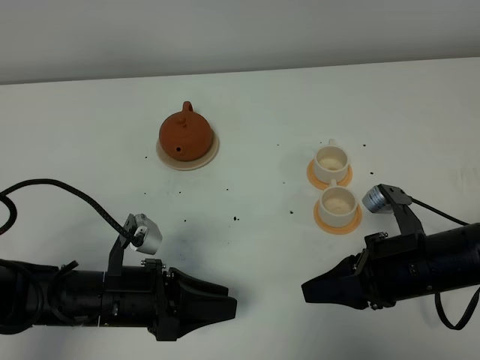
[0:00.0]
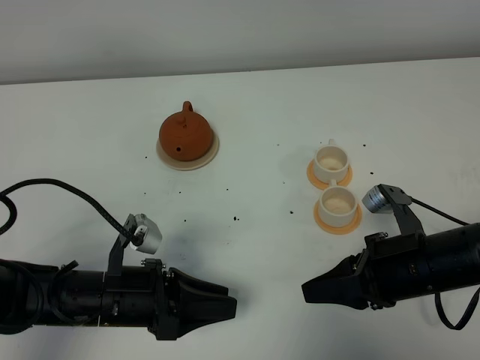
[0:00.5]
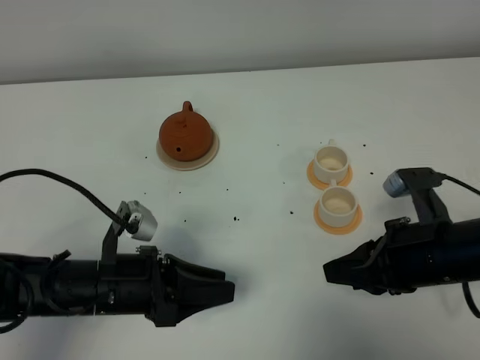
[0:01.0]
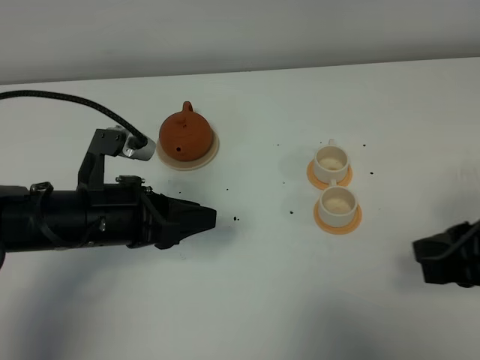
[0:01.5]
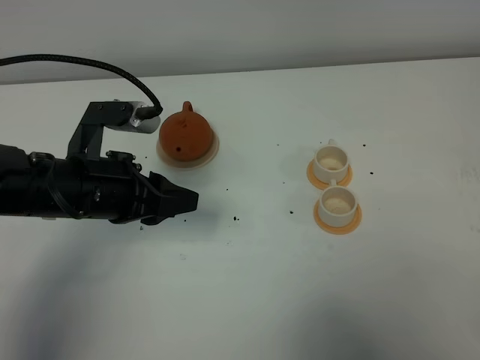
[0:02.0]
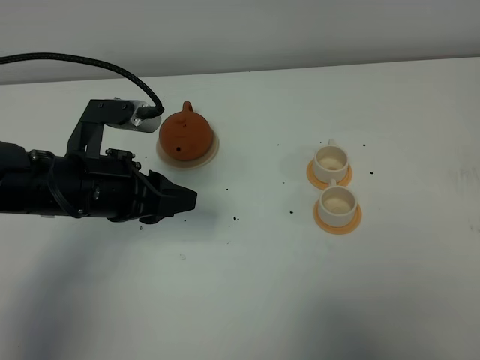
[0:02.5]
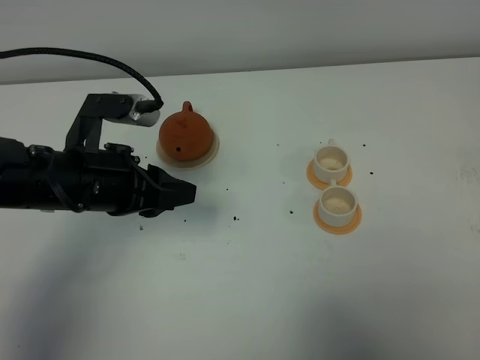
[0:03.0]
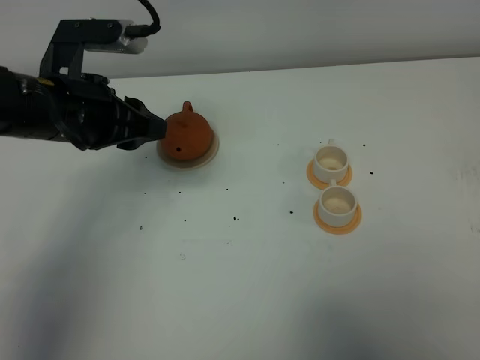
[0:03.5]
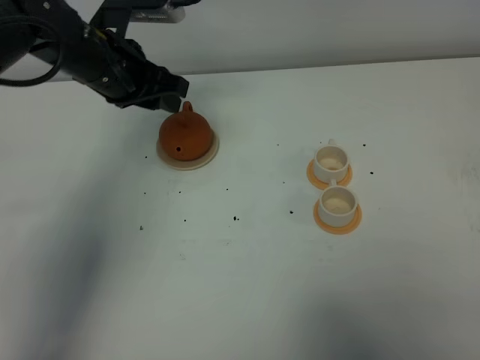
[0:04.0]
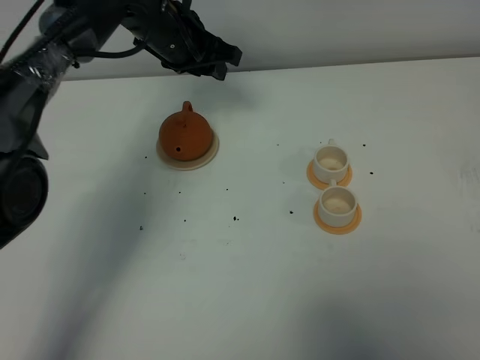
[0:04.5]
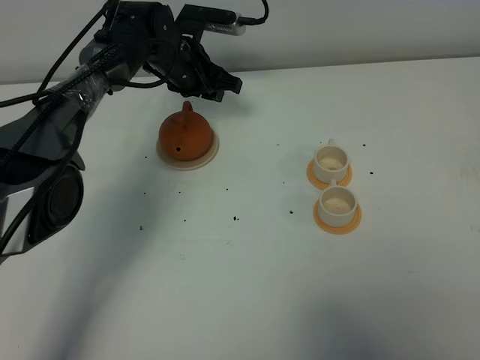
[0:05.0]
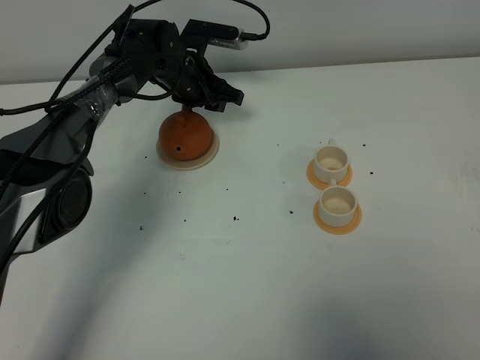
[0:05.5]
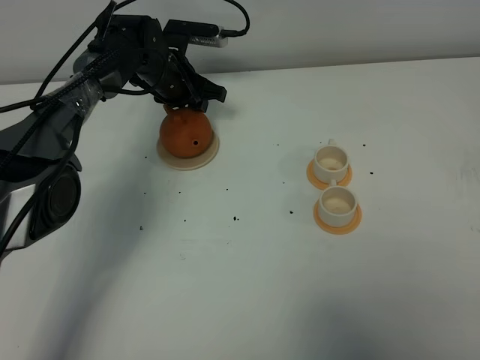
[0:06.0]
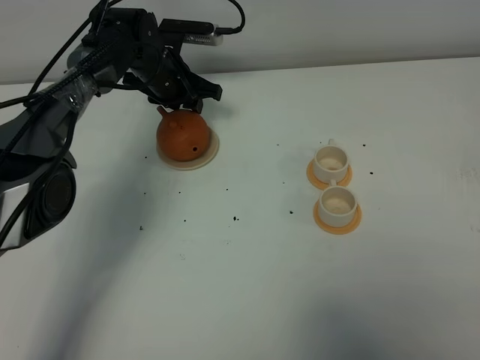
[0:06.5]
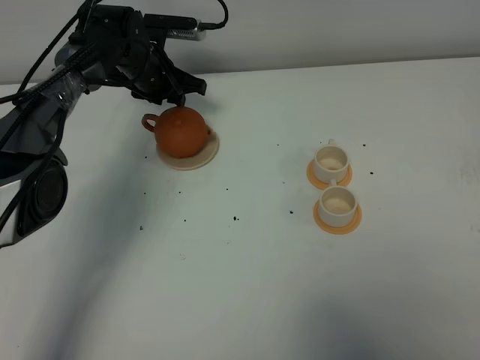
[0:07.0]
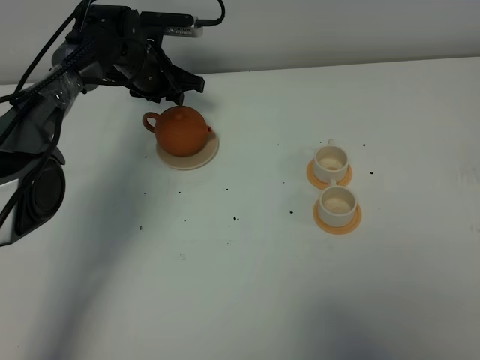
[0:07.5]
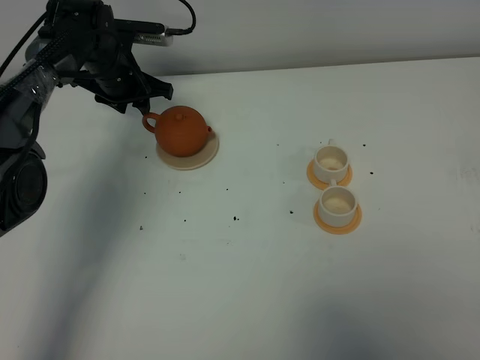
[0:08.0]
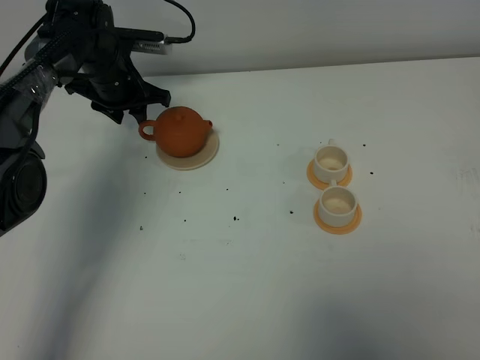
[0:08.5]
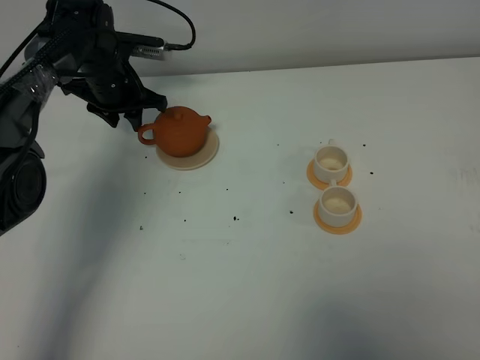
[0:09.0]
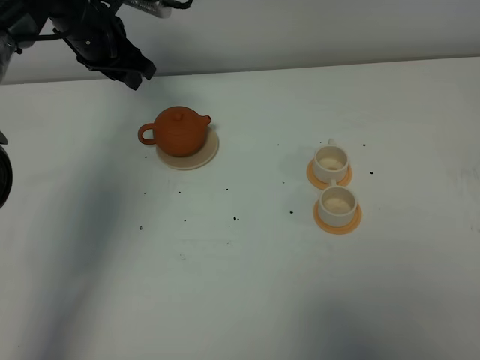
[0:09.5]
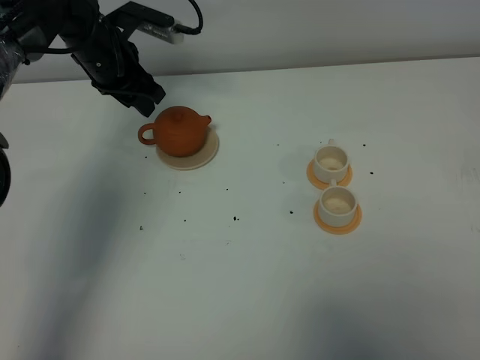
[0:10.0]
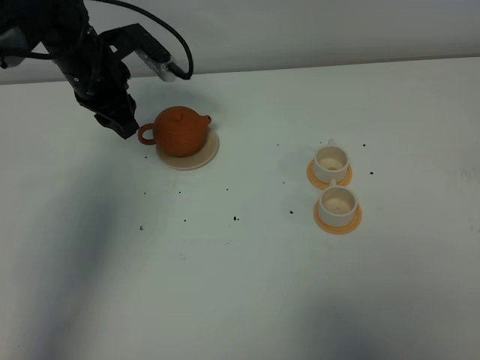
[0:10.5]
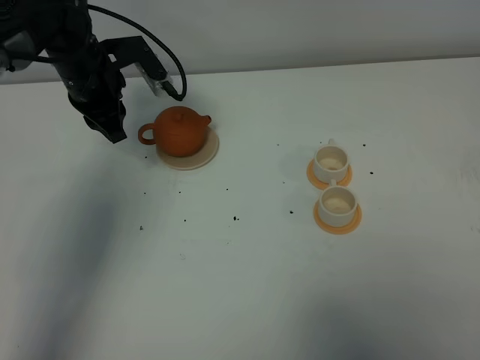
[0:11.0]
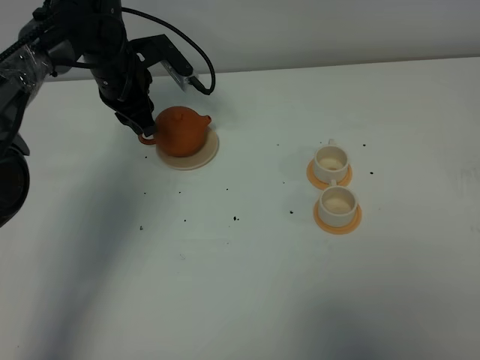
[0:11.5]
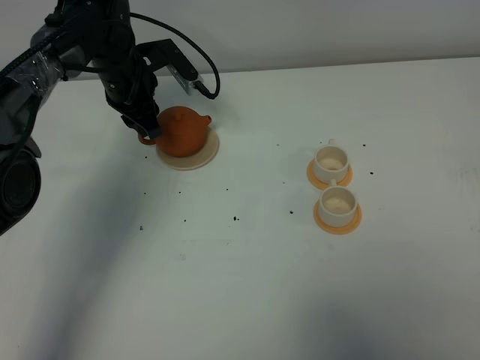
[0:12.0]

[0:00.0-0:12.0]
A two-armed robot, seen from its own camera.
Task of the whole recording: grasp the brown teapot and pour the tea into the two white teacups one by one, put the brown teapot back in its original place.
0.0 to 2.0 s: The right gripper is displaced backward, upward and to the right by some 25 cm; the left gripper is displaced upward and forward by approximately 15 cm.
2.0 to 4.0 s: The left gripper shifts some 15 cm forward. Meanwhile the right gripper moves backward, some 5 cm.
4.0 to 6.0 s: The left gripper is displaced downward and forward by approximately 15 cm.
6.0 to 8.0 s: The left gripper moves to the left, approximately 5 cm.
8.0 to 10.0 s: The left gripper goes roughly 5 cm upward.

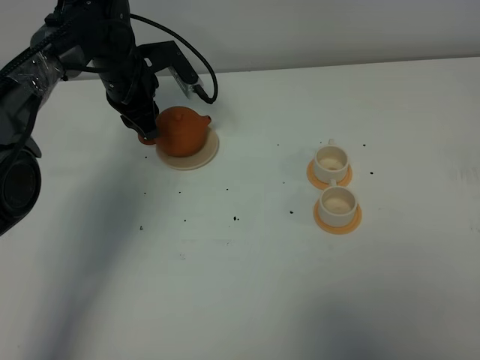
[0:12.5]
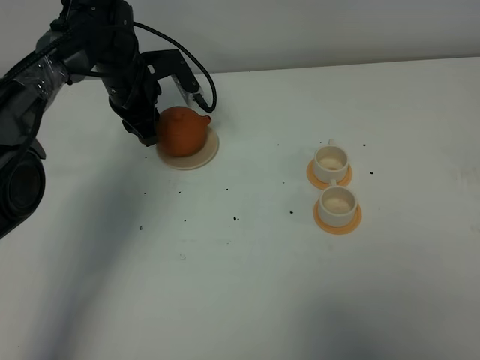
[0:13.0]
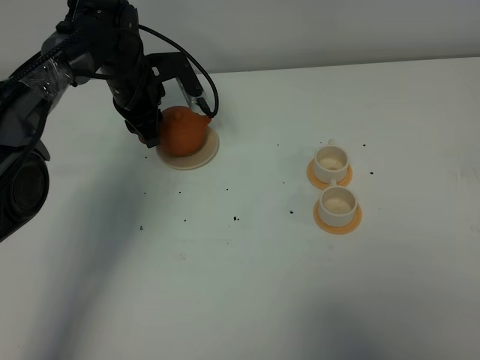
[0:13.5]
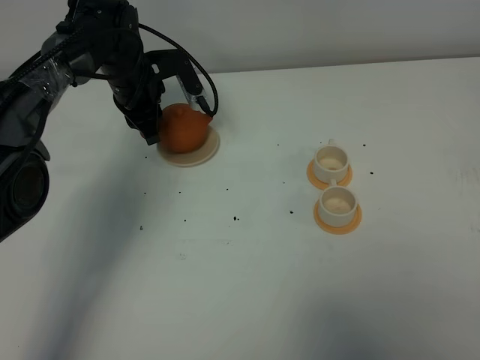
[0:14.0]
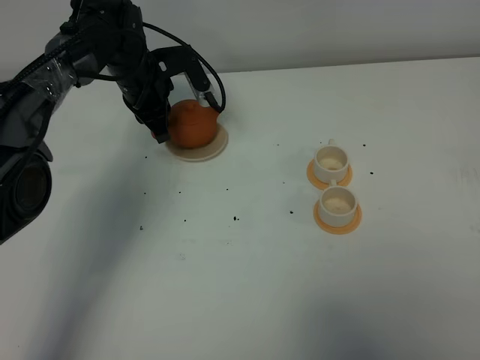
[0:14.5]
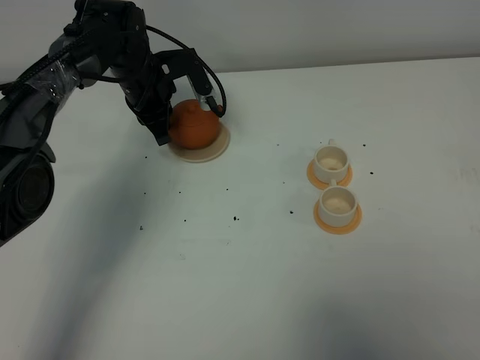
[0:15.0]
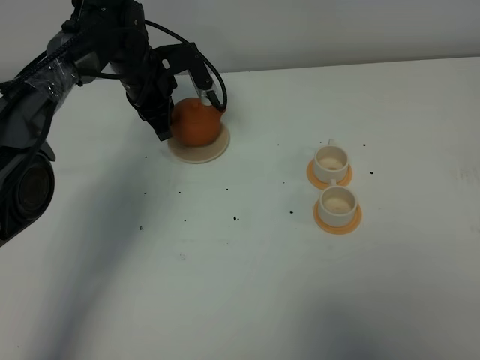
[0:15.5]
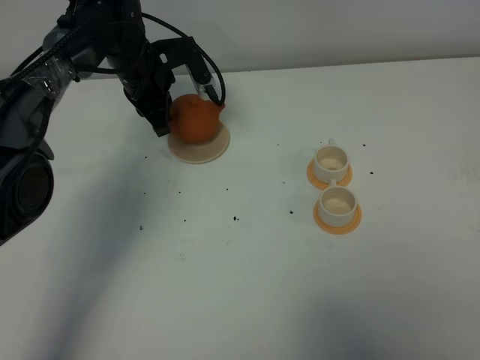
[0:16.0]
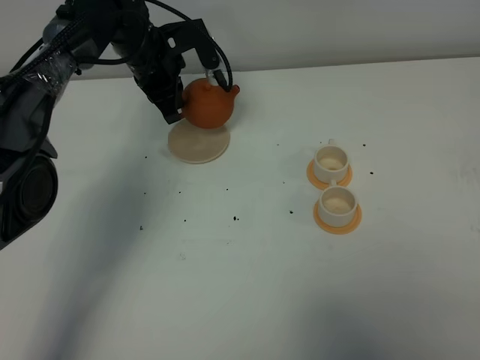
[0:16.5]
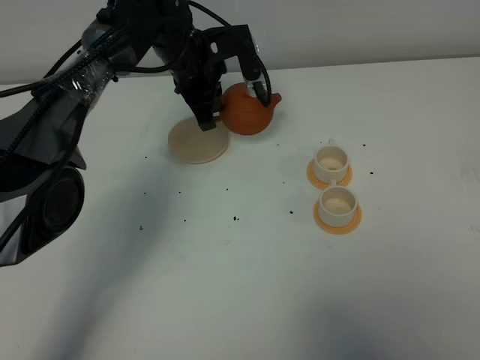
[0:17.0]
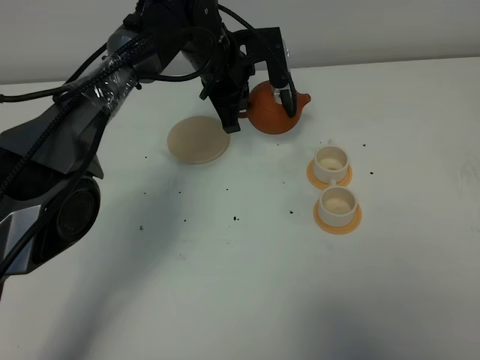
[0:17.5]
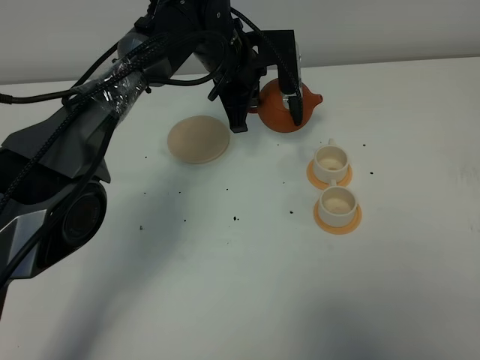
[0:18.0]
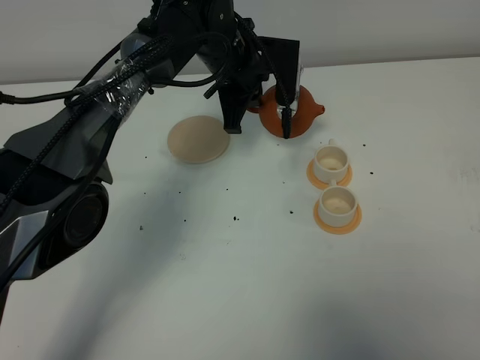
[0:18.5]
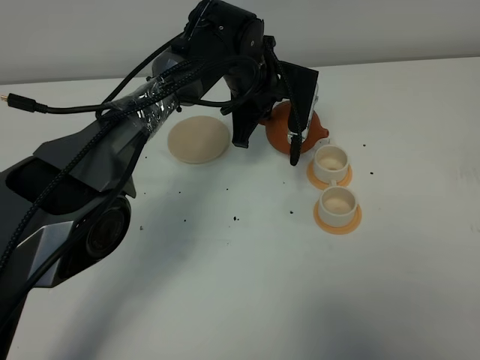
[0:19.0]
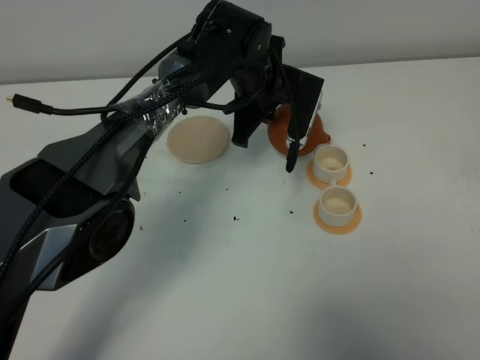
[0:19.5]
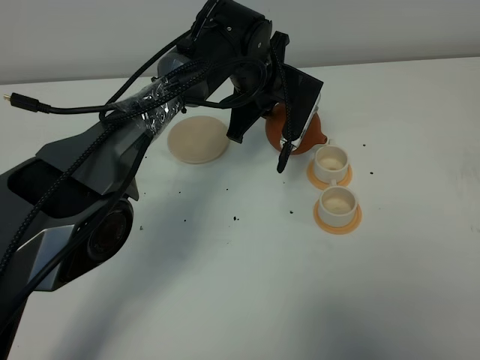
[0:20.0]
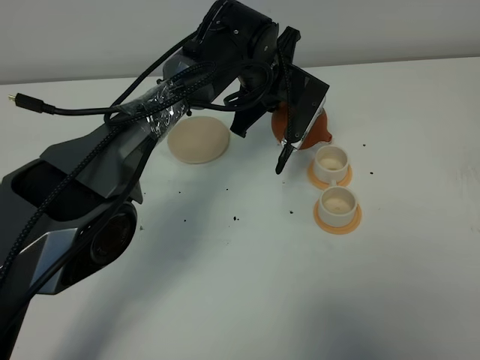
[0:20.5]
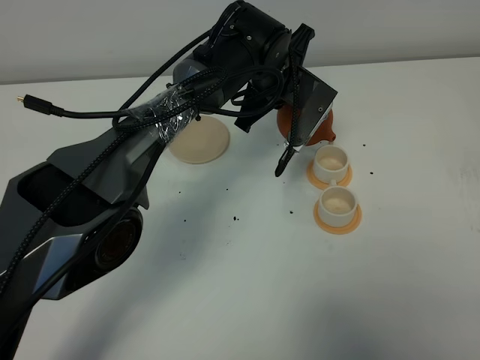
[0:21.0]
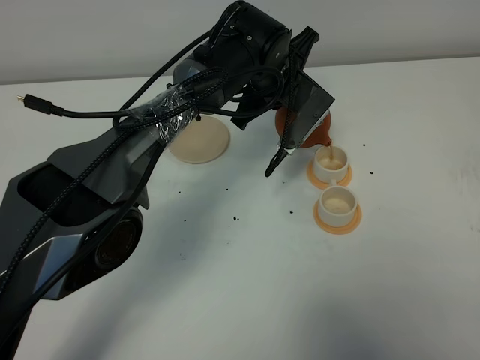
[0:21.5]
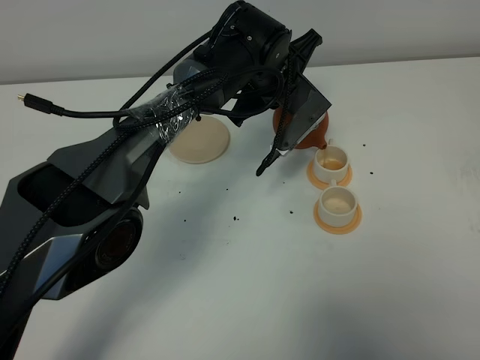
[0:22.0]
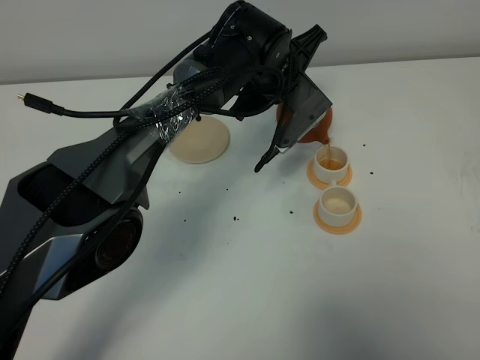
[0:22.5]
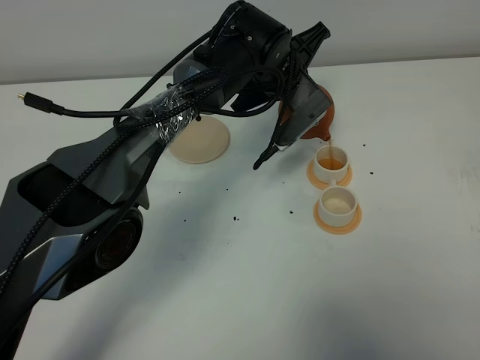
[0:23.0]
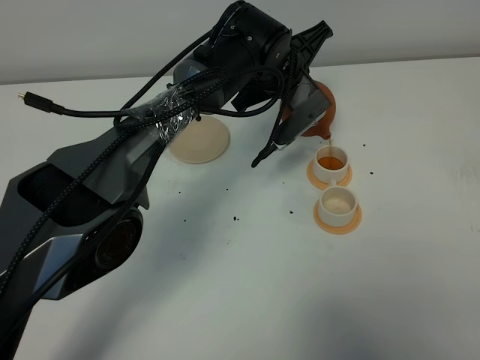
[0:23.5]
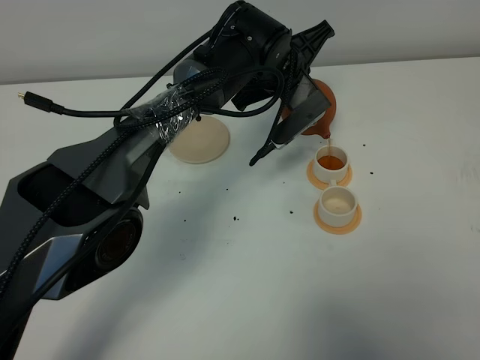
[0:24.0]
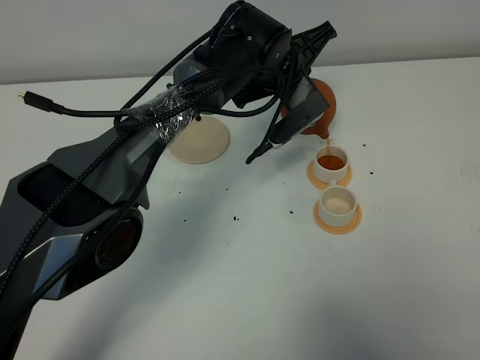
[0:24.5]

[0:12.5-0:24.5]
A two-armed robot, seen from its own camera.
Task of the whole recording: grasp the brown teapot and pour the tea into the two white teacups one by one, put the brown teapot back in its original place.
Step, 12.5 to 15.5 s: Pick up the teapot with the left gripper.
12.5 to 14.5 s: The left gripper closes its fingers.
14.5 to 16.5 s: The grippers stay close to where they were, moving slightly.
16.5 to 18.5 s: The left gripper travels to the right by about 10 cm.
22.5 to 24.5 s: The grippers make only small movements.

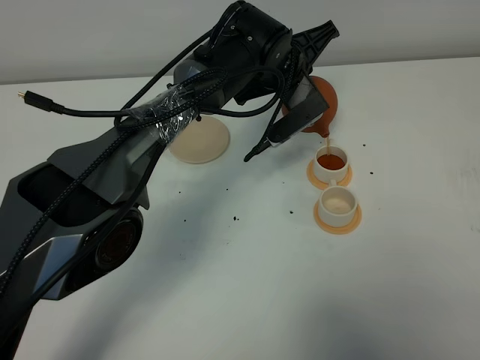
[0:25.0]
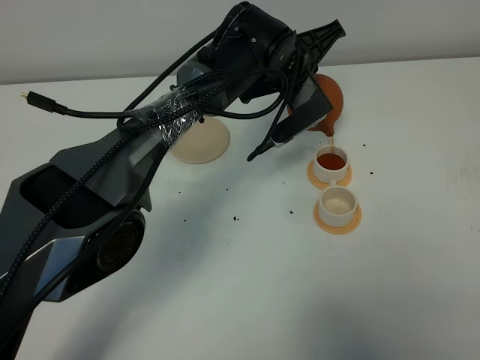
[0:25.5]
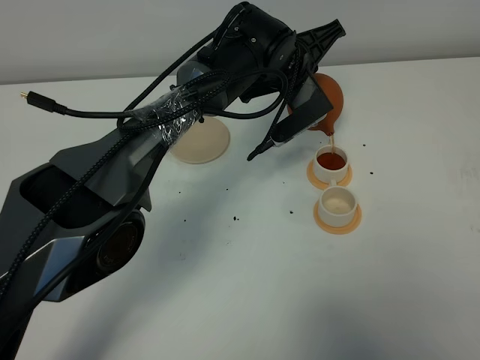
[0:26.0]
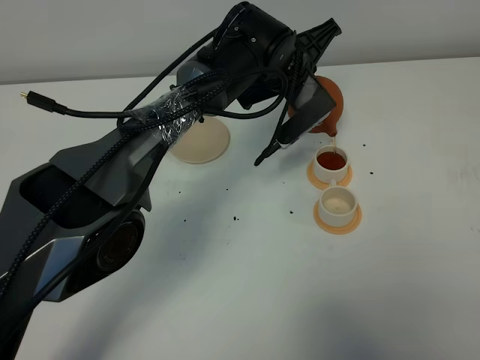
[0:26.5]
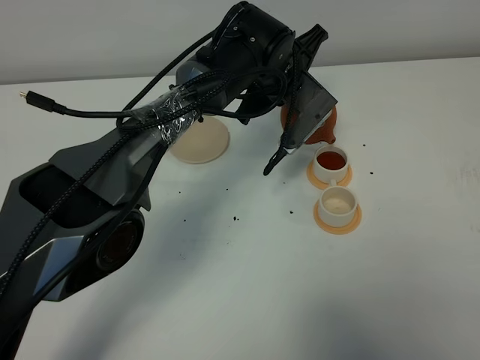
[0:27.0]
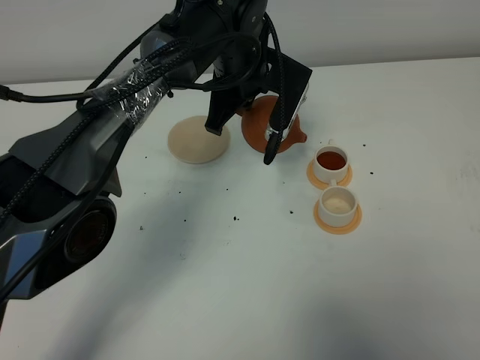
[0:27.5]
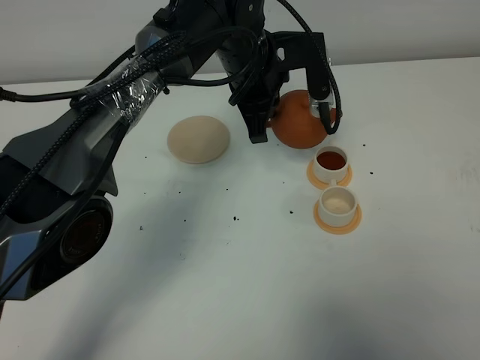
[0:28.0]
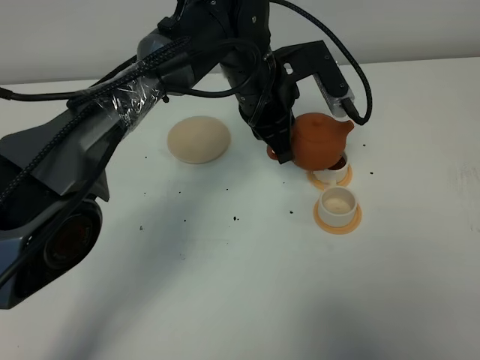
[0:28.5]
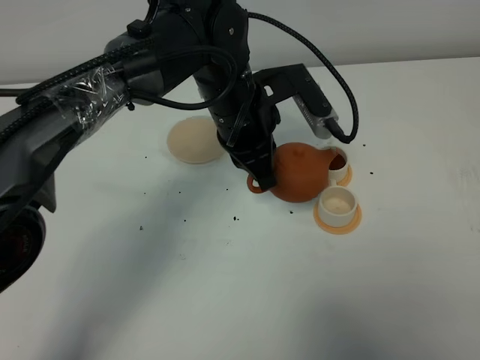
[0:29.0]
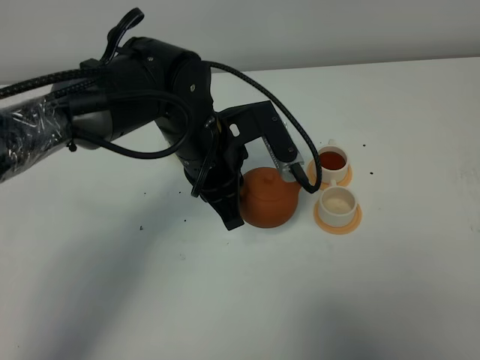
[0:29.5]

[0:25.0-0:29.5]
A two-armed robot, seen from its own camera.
Task of the whole recording: grasp the brown teapot and pour the tea into the two white teacups one by one, put the brown teapot back in its original place.
25.0 to 27.0 s: The grippers make only small movements.
27.0 to 29.5 s: The left gripper goes about 15 cm backward and to the left.
